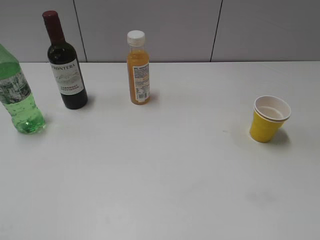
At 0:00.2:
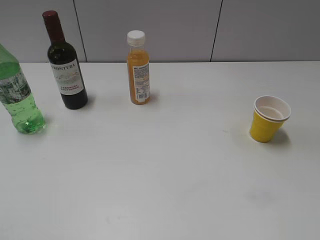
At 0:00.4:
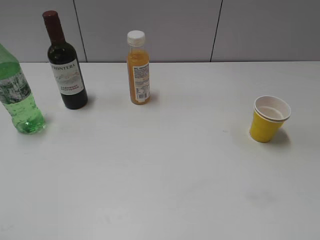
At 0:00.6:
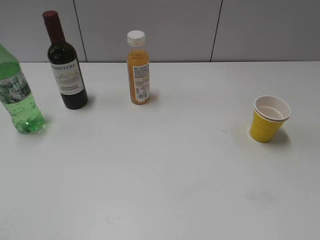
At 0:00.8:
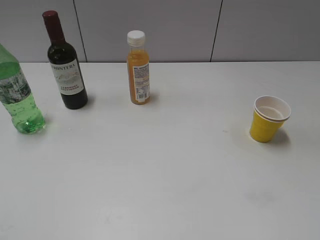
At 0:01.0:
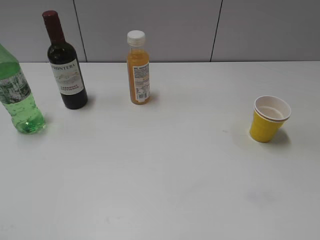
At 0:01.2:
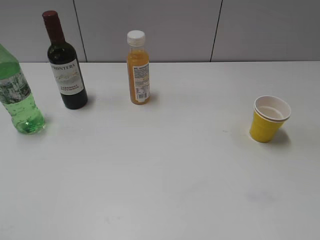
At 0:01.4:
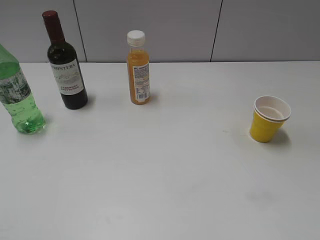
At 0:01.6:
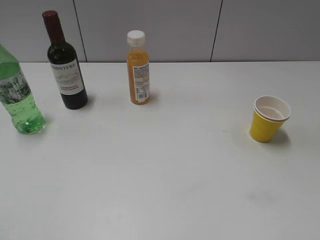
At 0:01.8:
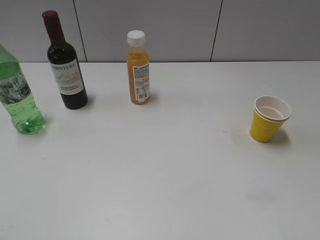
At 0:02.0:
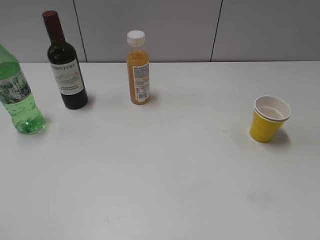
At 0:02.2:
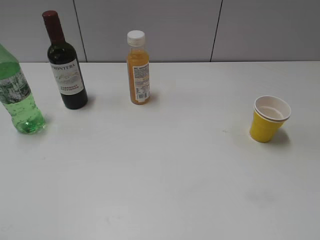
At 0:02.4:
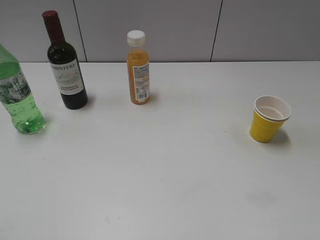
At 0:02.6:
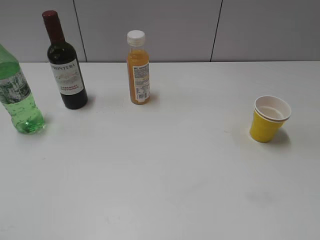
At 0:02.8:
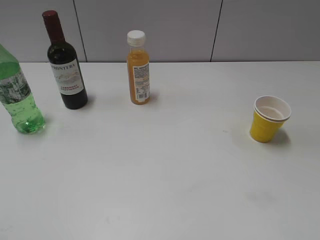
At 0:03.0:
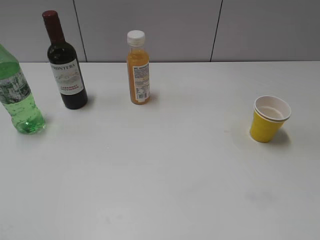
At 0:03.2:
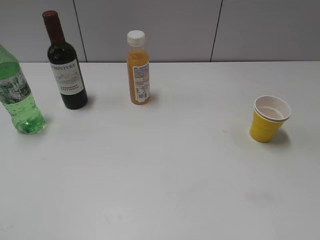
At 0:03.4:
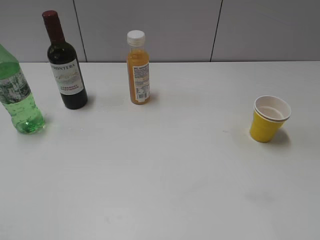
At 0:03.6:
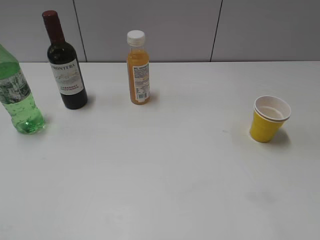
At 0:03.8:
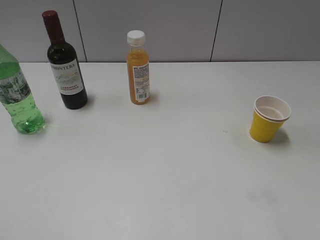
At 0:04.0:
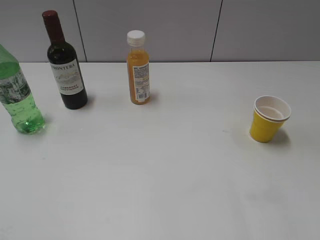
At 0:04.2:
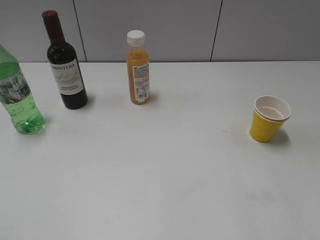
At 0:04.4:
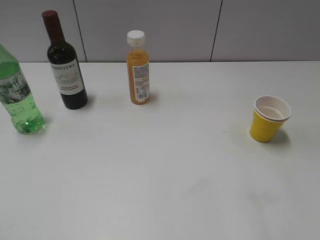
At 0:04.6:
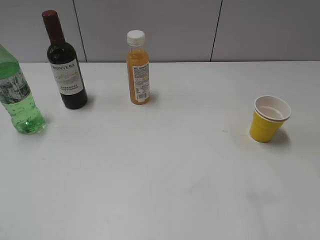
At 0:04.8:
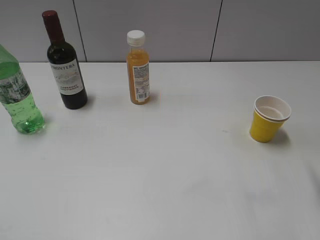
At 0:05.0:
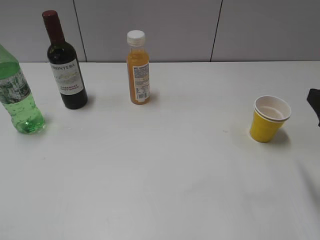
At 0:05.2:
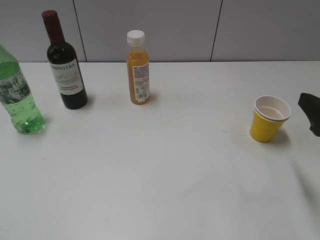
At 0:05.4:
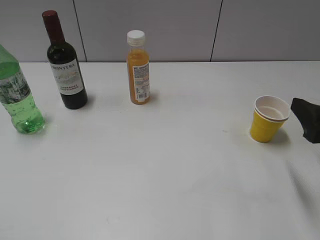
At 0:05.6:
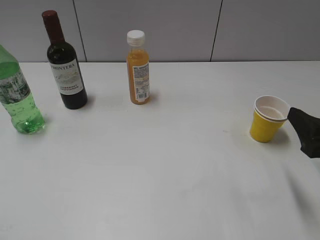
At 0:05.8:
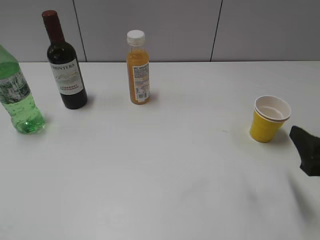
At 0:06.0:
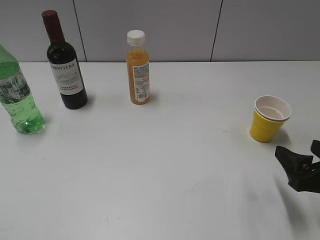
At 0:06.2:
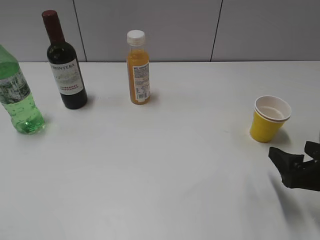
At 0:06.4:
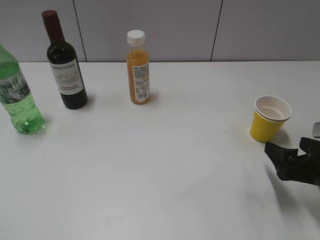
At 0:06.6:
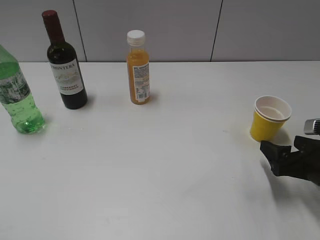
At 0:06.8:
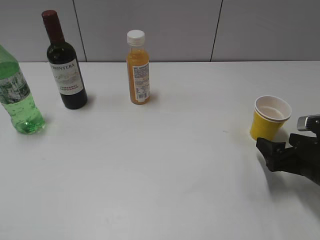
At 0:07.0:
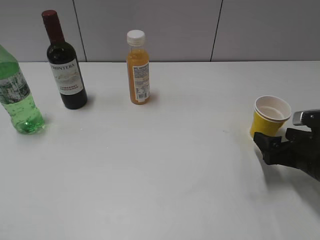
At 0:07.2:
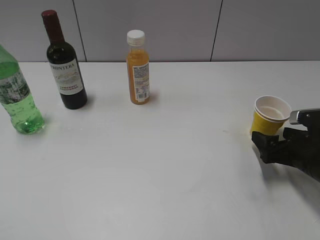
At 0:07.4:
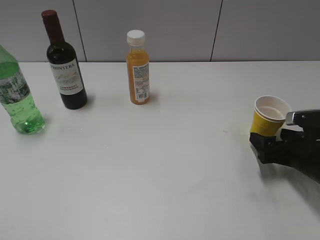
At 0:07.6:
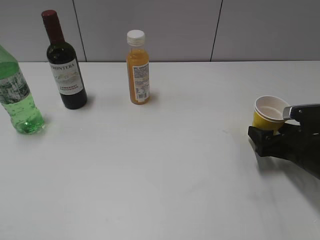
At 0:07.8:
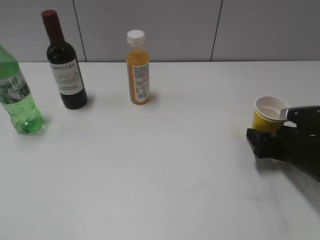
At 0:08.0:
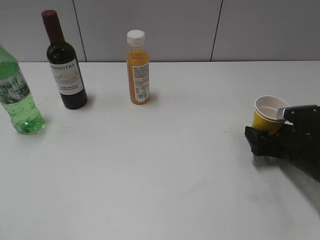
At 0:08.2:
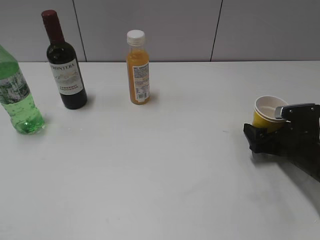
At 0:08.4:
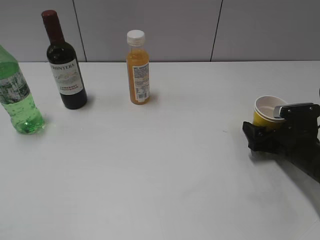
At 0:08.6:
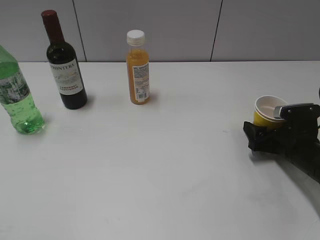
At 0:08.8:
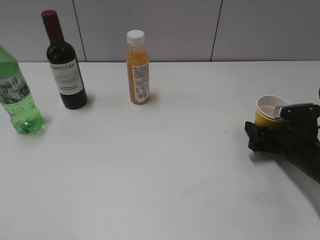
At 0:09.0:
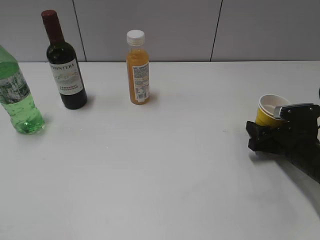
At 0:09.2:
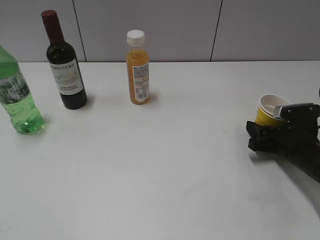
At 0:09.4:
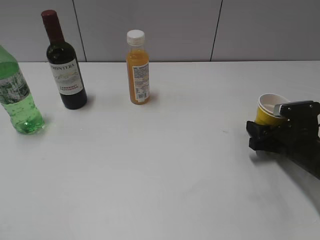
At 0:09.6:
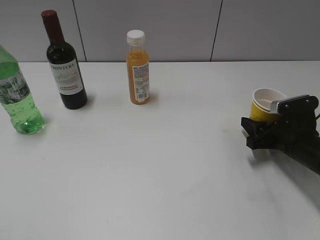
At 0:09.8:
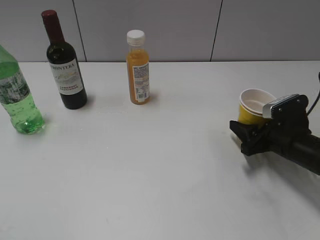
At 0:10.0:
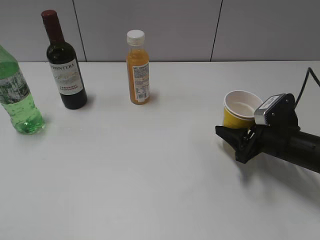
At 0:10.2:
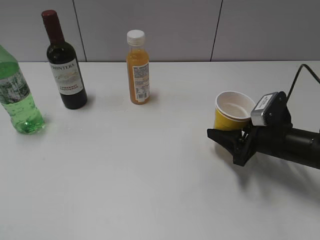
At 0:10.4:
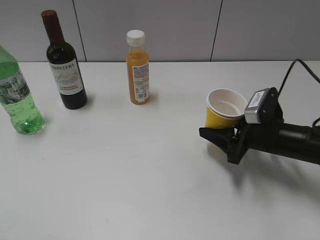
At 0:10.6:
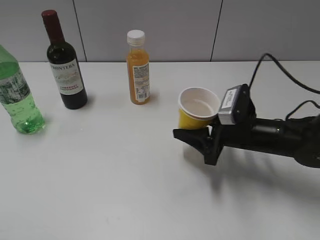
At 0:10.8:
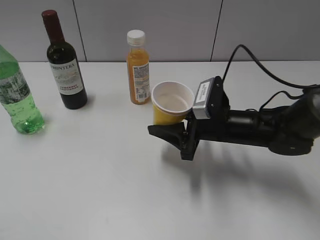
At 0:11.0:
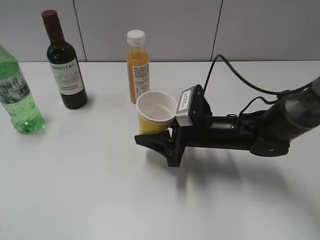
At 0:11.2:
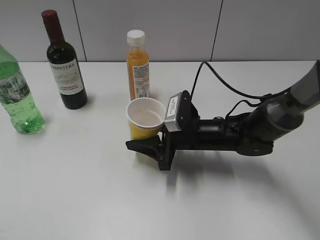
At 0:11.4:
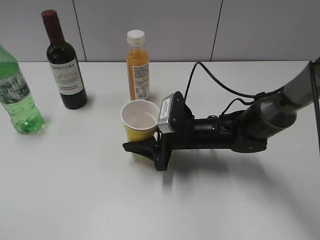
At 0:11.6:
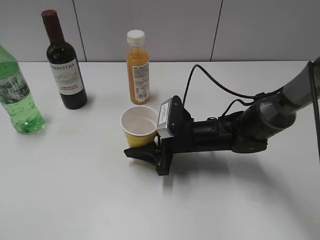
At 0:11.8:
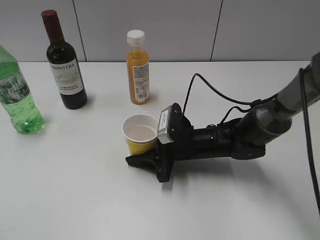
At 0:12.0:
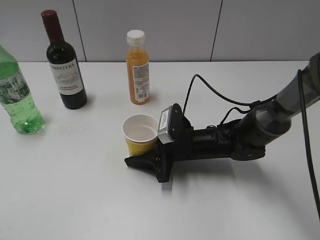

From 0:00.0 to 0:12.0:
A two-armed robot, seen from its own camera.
Step, from 0:00.8 to 0:09.0: Grasp the yellow paper cup with right gripper.
From 0:04.4 to 0:06.0: The right gripper heads downward, covering approximately 10 cm.
From 0:06.0 to 0:07.6: The right gripper is displaced forward and downward by about 10 cm.
From 0:07.6 to 0:09.0: The right gripper closes up.
From 0:09.0 to 0:10.4: The right gripper heads to the left, covering about 5 cm.
From 0:10.4 to 0:12.0: The right gripper goes roughly 15 cm to the left.

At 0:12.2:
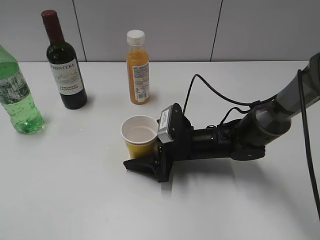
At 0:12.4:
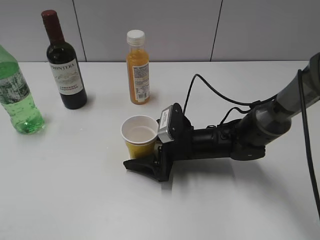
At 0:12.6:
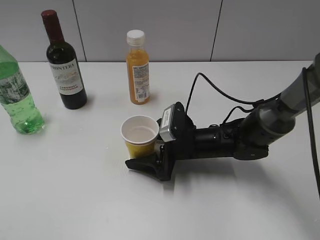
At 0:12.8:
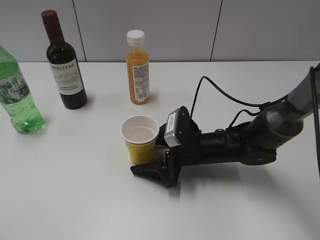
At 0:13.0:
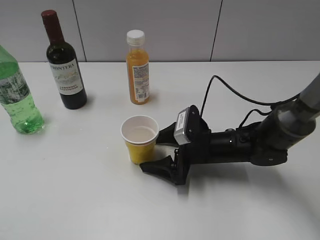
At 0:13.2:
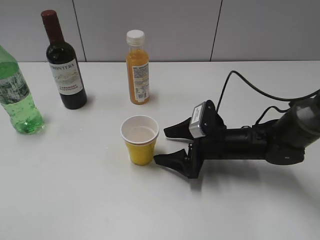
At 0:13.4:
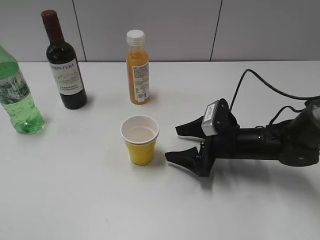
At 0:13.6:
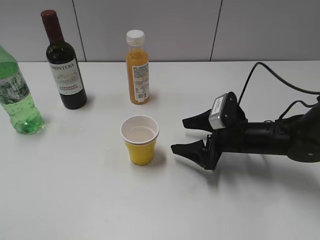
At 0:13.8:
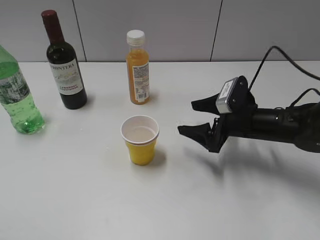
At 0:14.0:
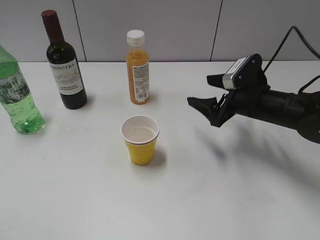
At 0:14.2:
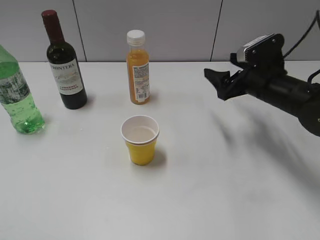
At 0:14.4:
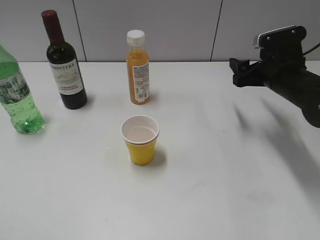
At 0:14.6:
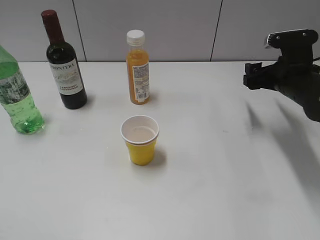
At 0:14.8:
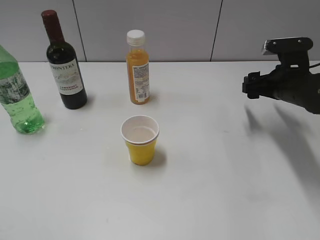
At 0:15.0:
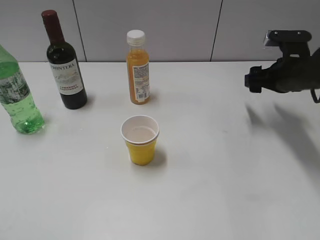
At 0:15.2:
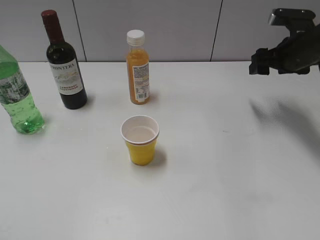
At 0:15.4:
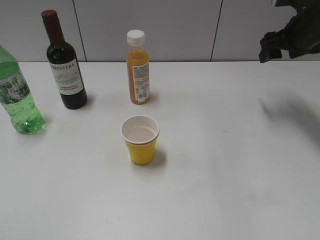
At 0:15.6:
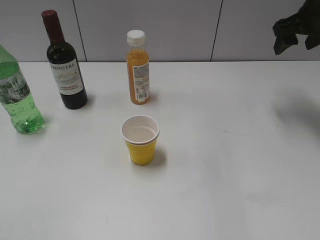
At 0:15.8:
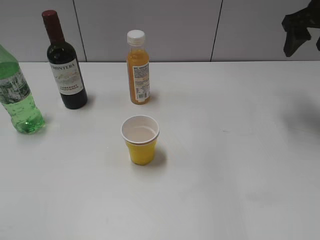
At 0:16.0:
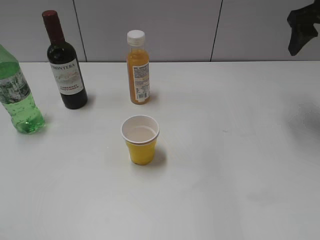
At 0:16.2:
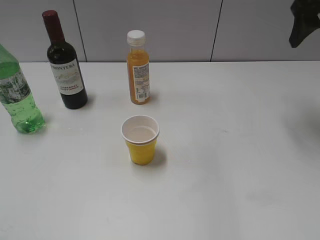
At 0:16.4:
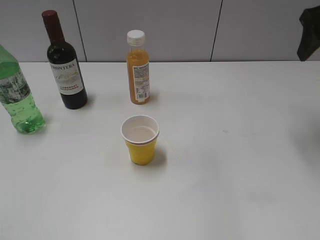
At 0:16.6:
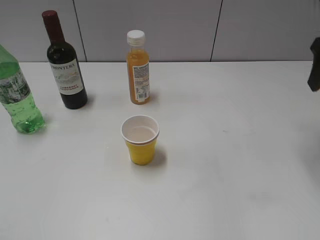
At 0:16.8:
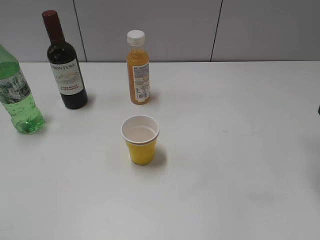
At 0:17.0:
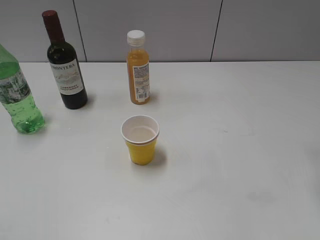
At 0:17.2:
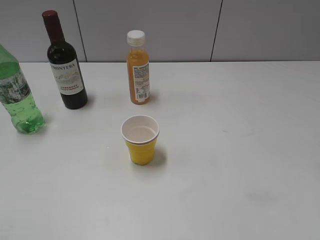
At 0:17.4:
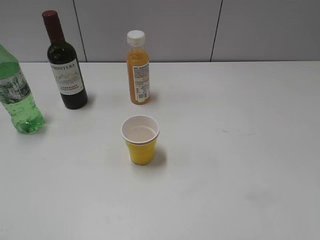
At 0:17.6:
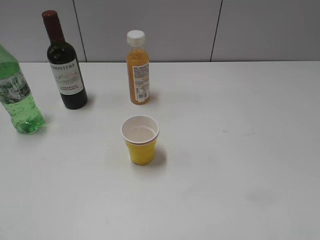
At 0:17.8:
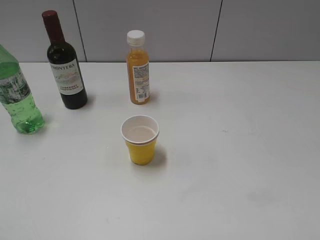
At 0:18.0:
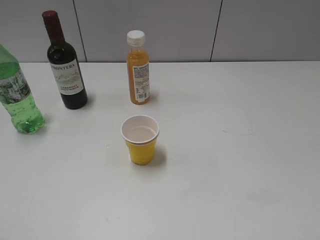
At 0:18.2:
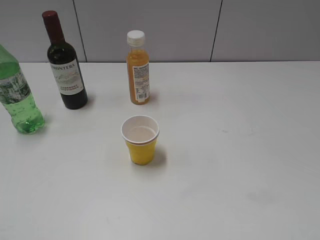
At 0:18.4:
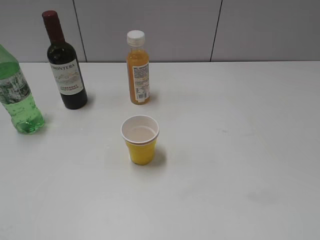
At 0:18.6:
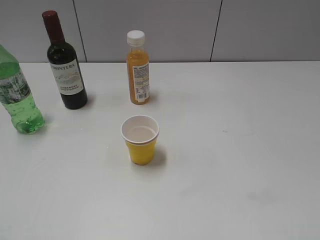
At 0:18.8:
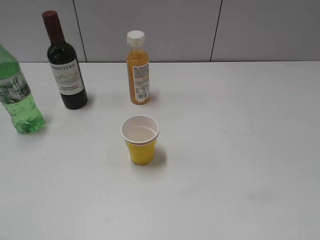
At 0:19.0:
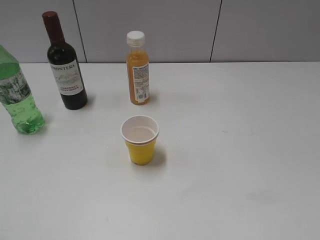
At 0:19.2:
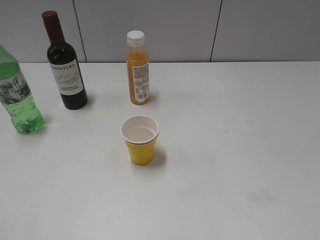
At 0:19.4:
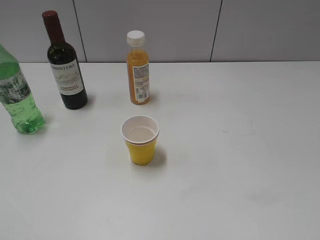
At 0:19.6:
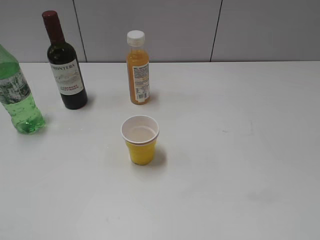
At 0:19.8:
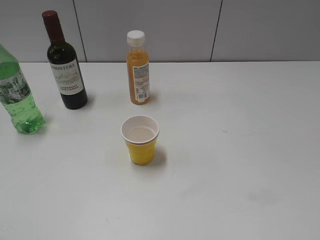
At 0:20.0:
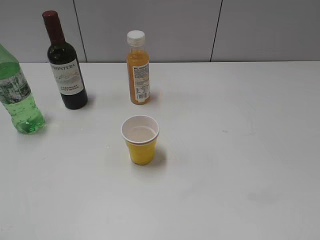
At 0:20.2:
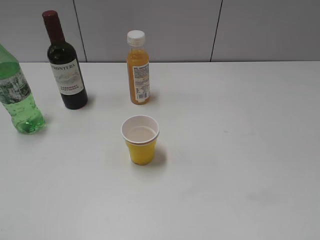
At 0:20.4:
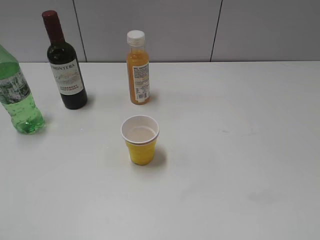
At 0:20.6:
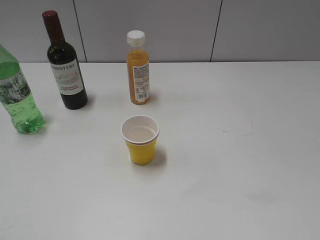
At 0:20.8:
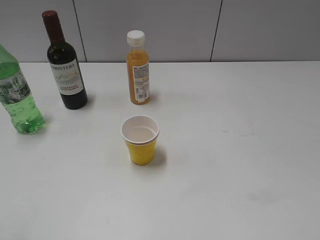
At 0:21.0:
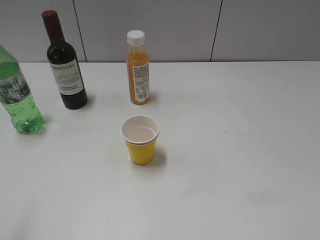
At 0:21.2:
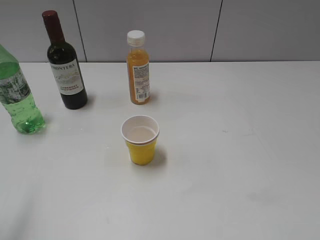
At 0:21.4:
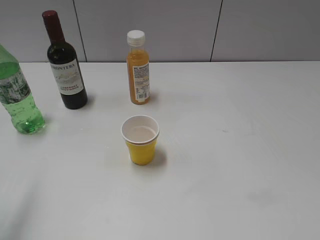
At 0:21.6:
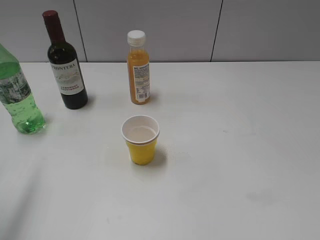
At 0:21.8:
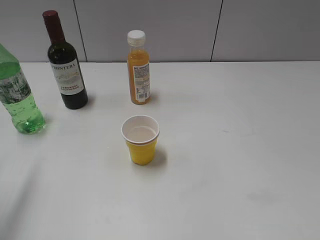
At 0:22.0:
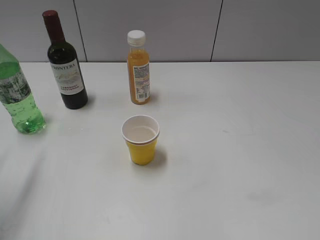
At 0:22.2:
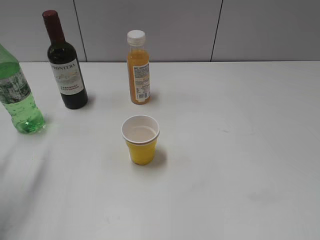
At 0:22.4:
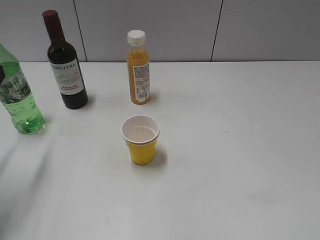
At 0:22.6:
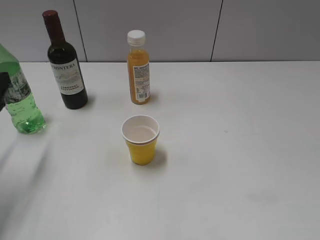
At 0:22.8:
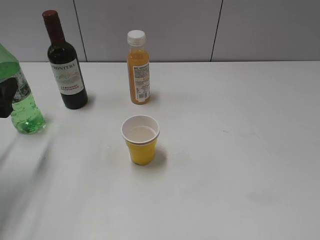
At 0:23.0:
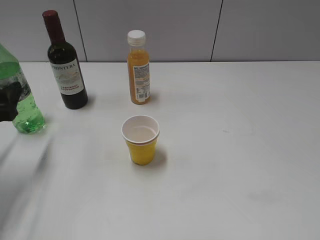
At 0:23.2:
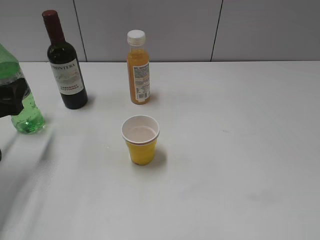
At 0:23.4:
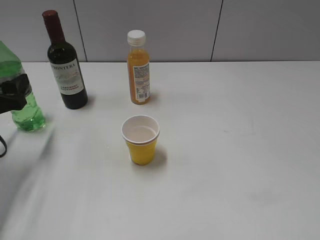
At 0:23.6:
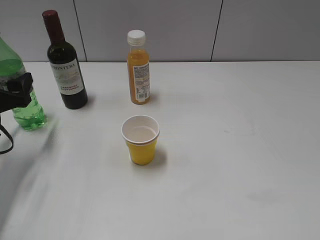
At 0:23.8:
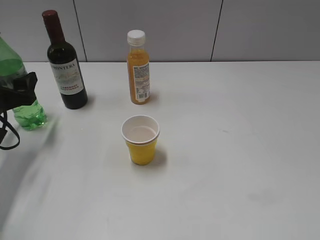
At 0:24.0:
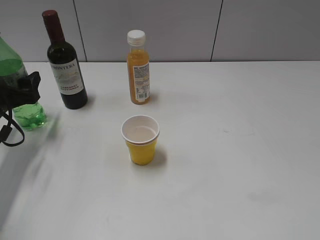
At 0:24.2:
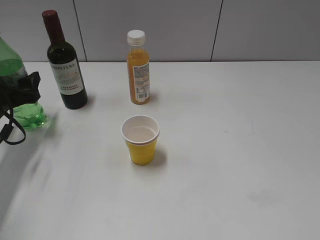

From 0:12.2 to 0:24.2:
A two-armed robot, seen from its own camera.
From 0:12.2 to 0:13.8: The right gripper is displaced to the right by roughly 10 cm.
From 0:13.8 to 0:15.2: The right gripper moves upward, forward and to the right, about 15 cm.
From 0:15.2 to 0:16.6: The right gripper travels upward and backward by approximately 15 cm.
From 0:16.6 to 0:18.2: The right gripper travels backward by approximately 25 cm.
From 0:21.2 to 0:22.6: The left gripper moves forward and downward, roughly 20 cm.
From 0:22.6 to 0:24.2: The left gripper goes some 15 cm forward and downward.
